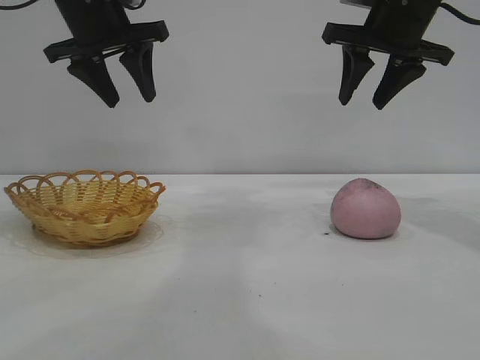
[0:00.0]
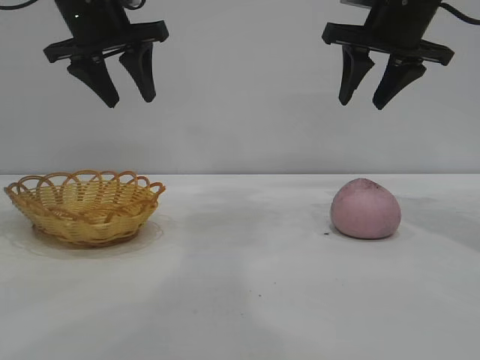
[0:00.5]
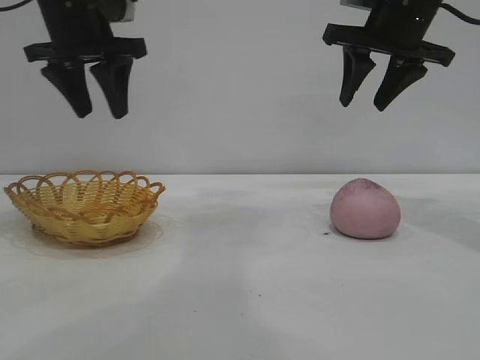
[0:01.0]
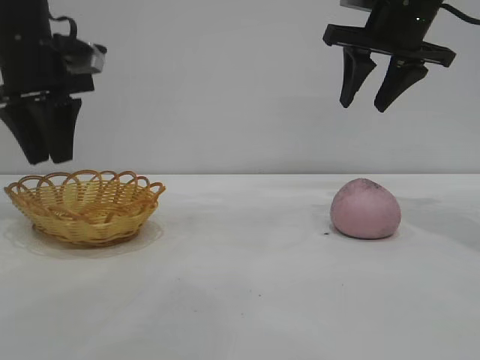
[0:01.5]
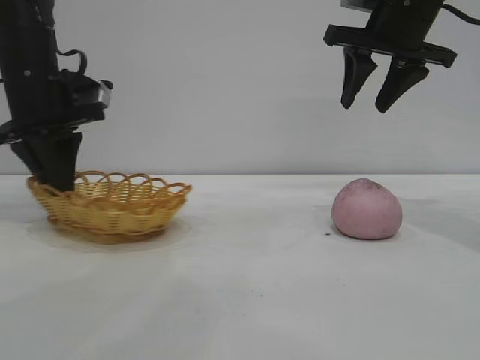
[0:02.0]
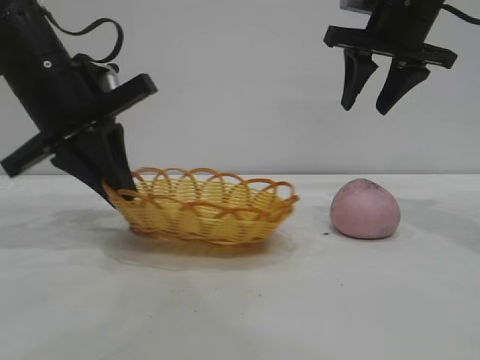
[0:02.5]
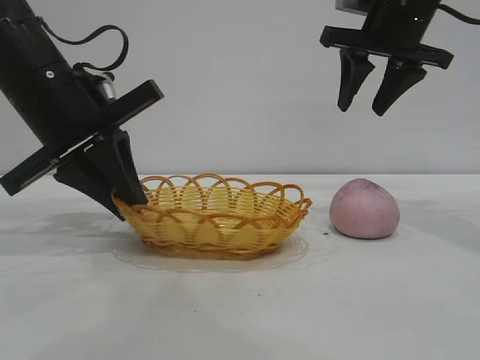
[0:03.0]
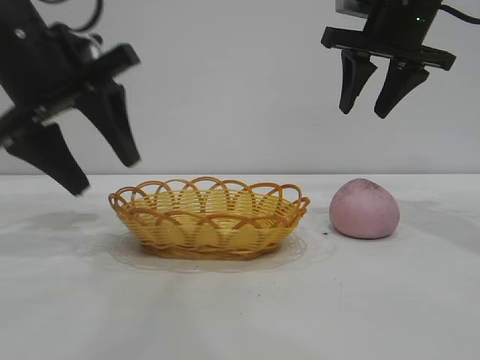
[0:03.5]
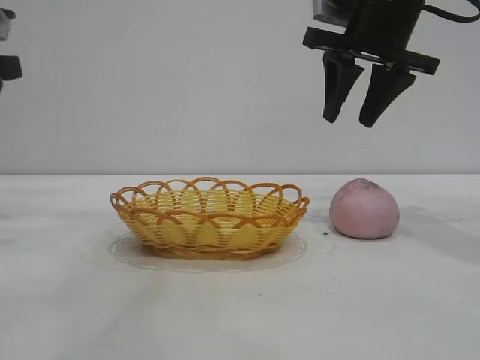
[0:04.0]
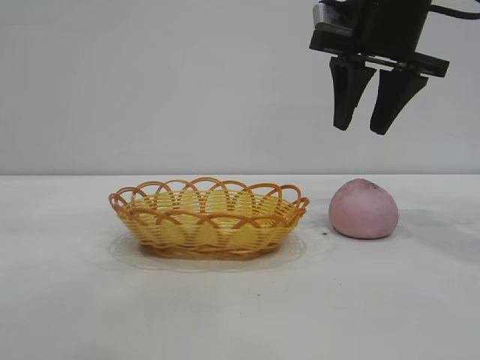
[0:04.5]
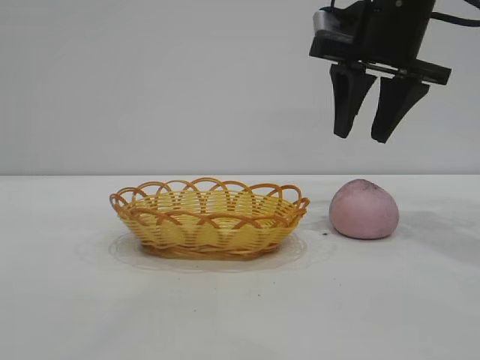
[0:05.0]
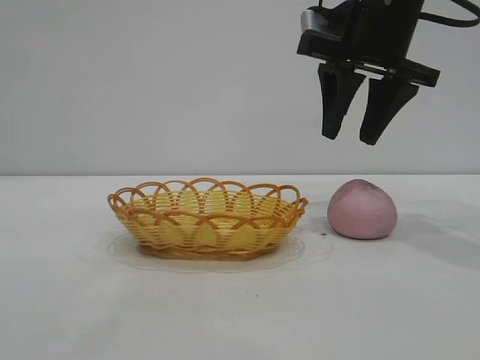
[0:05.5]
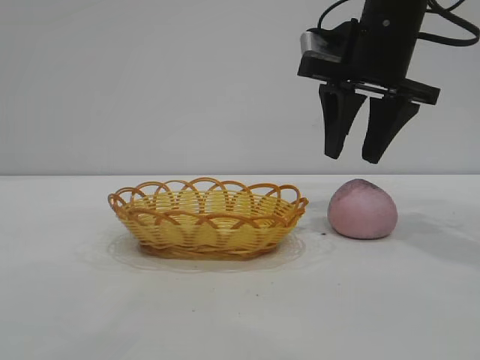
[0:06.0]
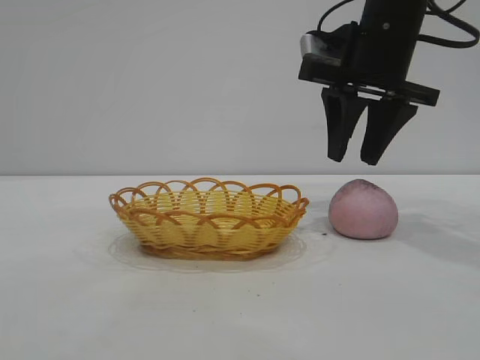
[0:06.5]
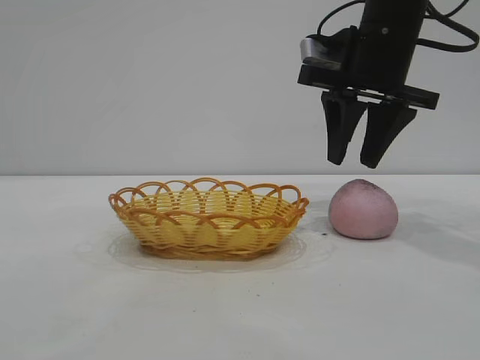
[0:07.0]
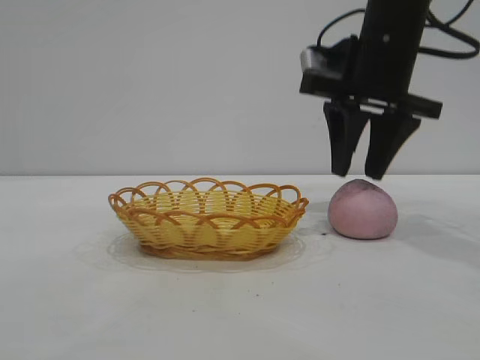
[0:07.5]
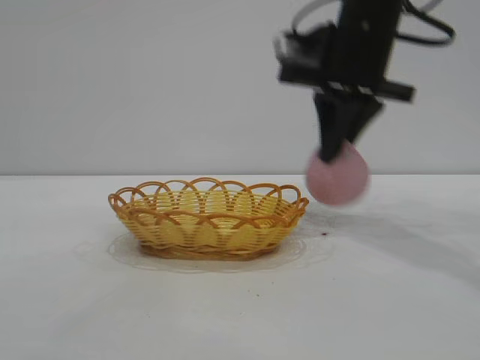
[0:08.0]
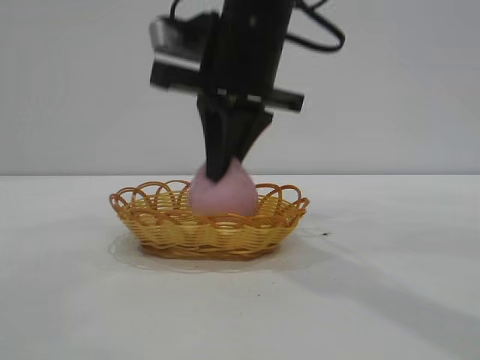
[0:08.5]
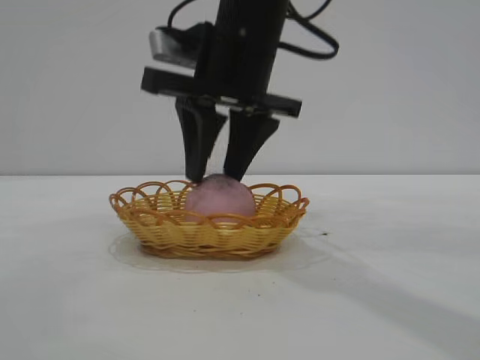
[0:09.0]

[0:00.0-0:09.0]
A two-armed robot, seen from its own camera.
Task of the whole recording: pick up the peach and put it into the basket.
Step, 0:00.0 to 0:03.5: Move the basket to the center of view.
Step, 0:04.0 to 0:07.5: Pick up the peach.

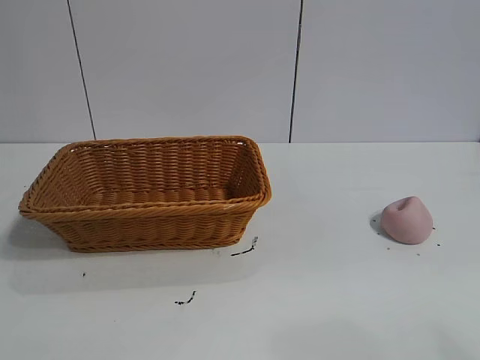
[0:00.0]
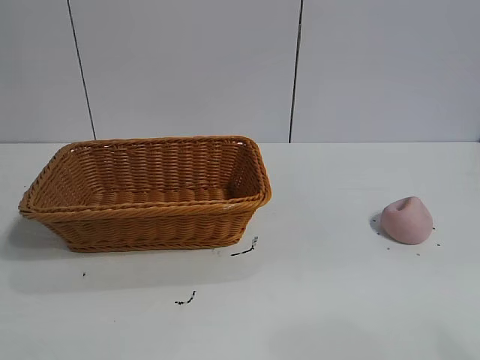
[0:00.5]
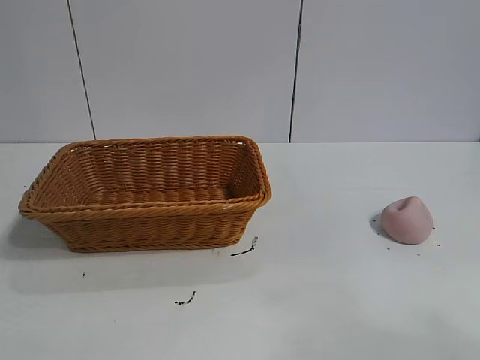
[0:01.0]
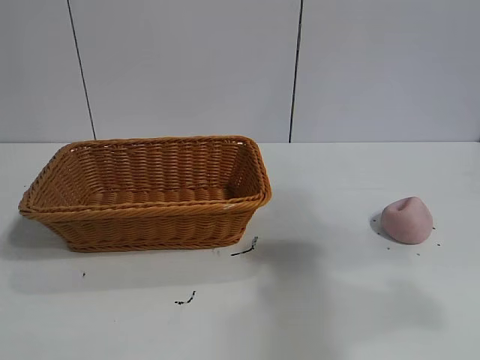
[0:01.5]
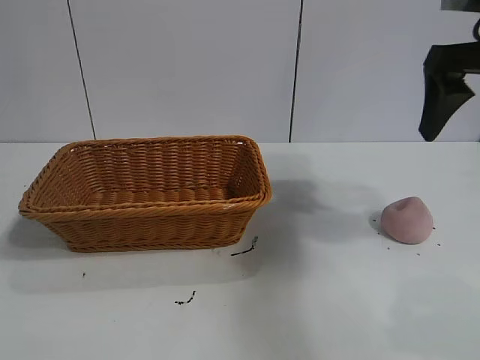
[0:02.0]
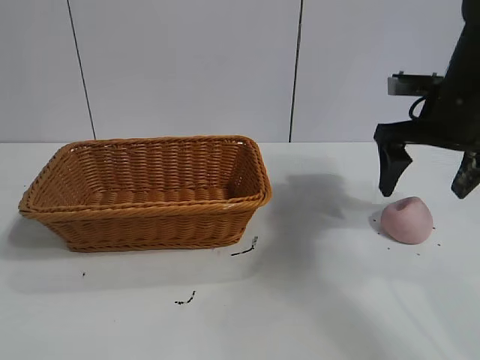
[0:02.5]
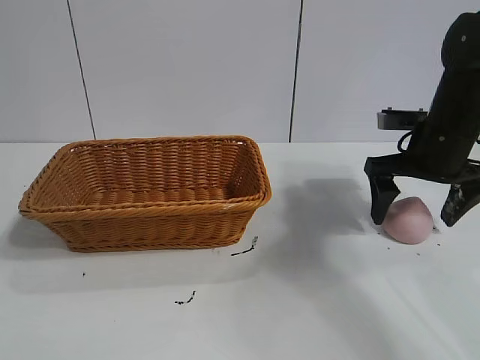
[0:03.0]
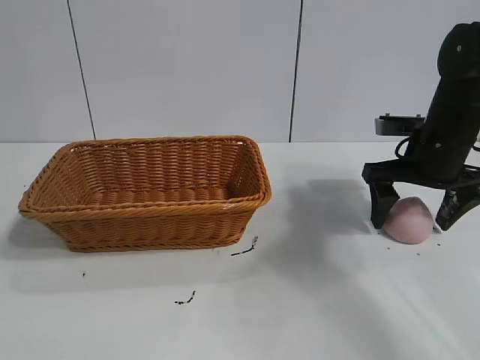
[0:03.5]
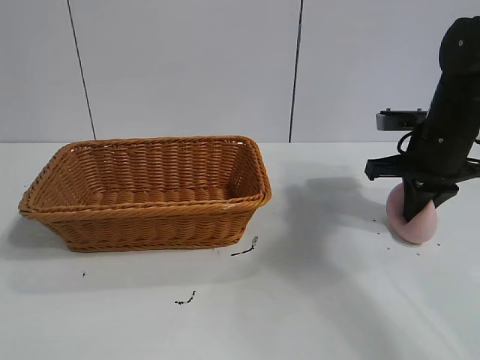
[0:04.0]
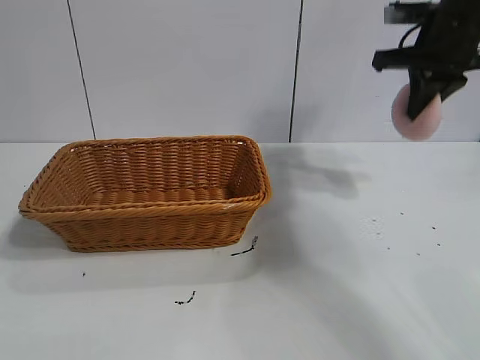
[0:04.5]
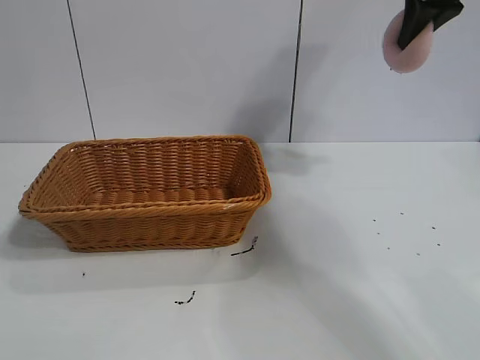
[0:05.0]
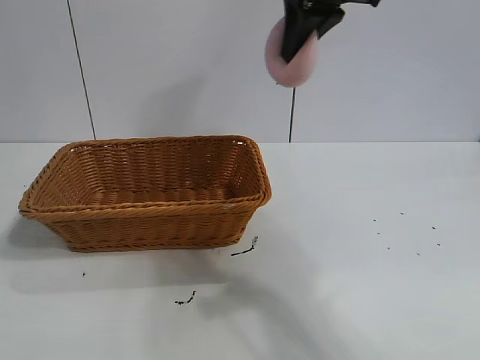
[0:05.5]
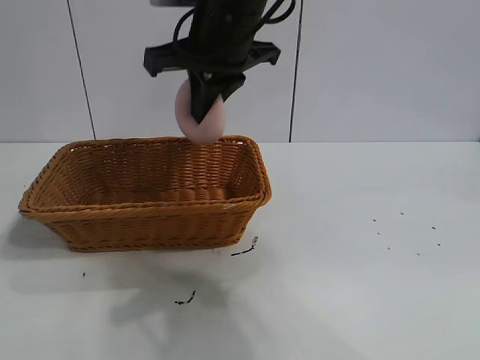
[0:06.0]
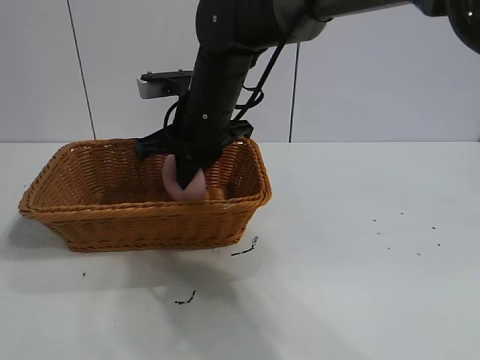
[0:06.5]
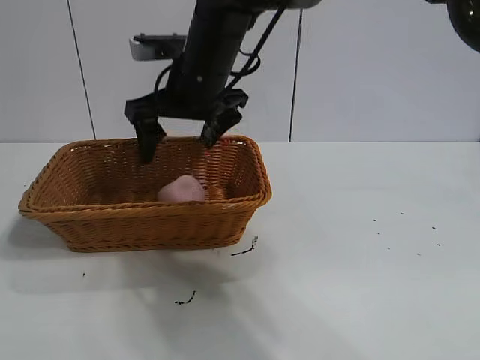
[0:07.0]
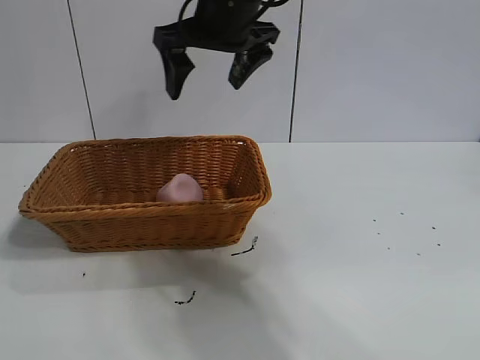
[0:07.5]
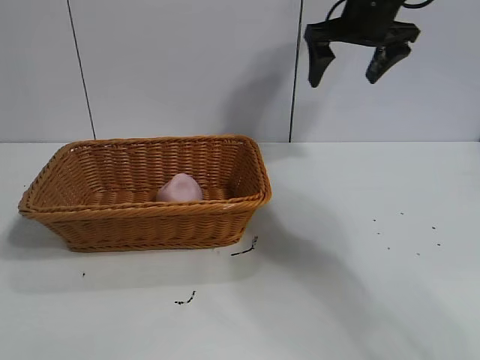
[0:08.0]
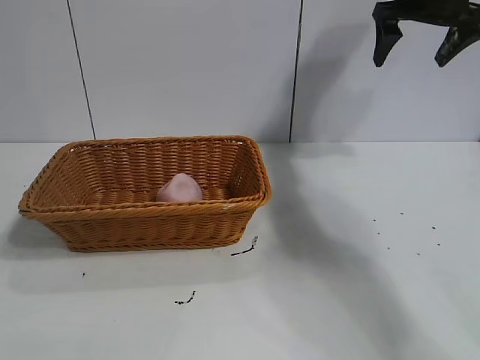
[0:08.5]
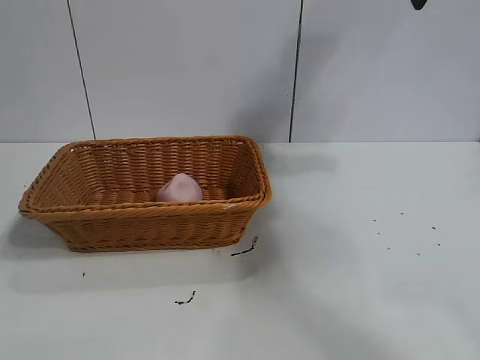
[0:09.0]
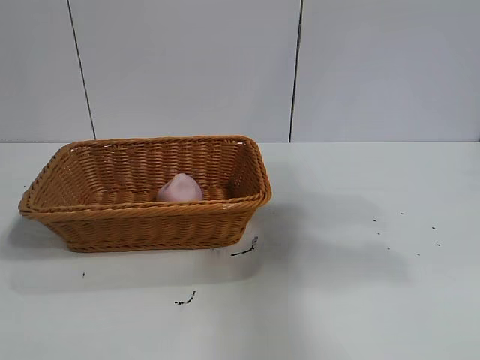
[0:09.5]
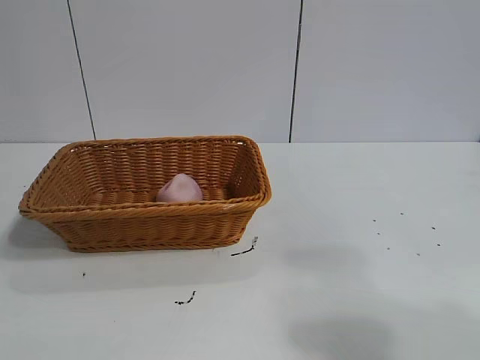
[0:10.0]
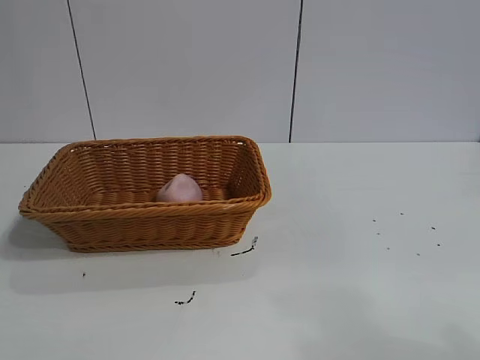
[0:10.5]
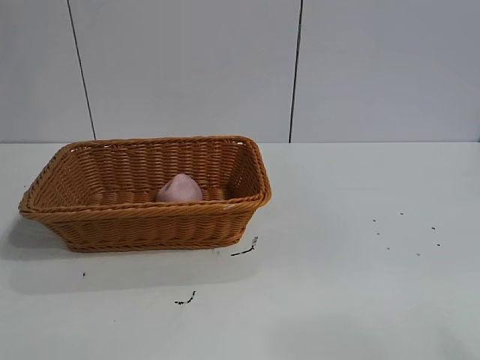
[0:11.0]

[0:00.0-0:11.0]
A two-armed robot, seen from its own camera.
Task of the whole recording: pick up the peach and put it into the basket.
Step, 0:01.0 to 0:04.0: Grasp the peach with right gripper.
Step, 0:04.5 to 0:07.0: Place the peach in the basket with right gripper.
